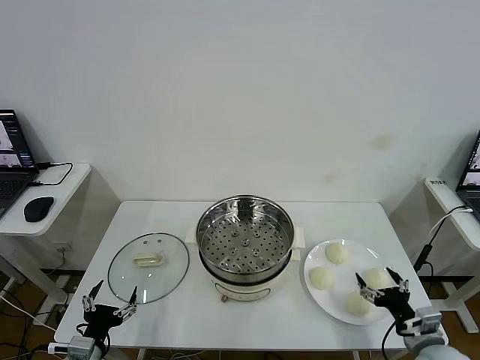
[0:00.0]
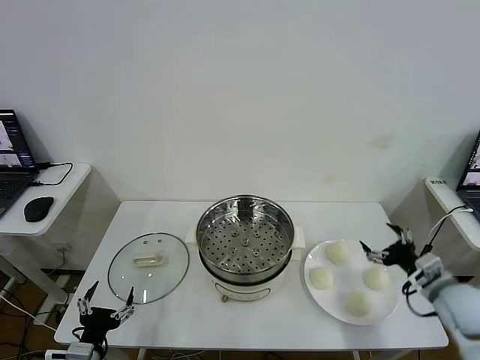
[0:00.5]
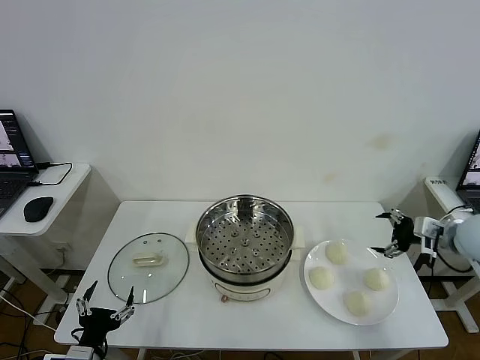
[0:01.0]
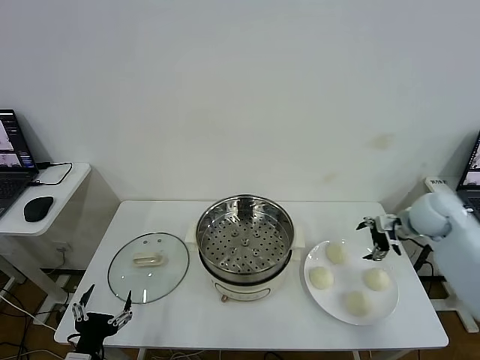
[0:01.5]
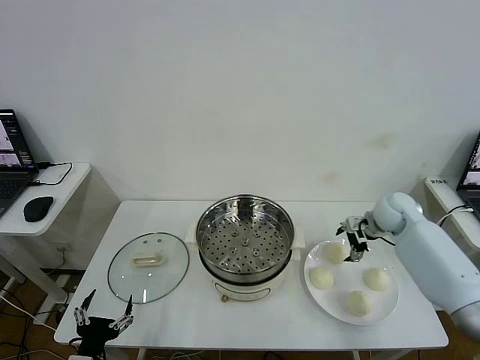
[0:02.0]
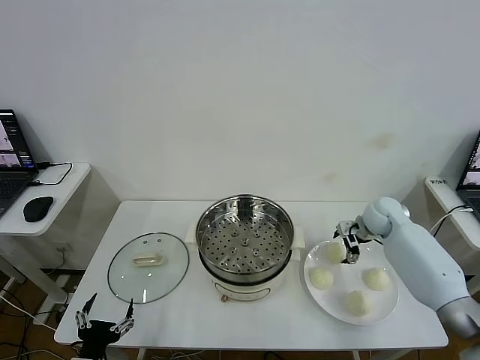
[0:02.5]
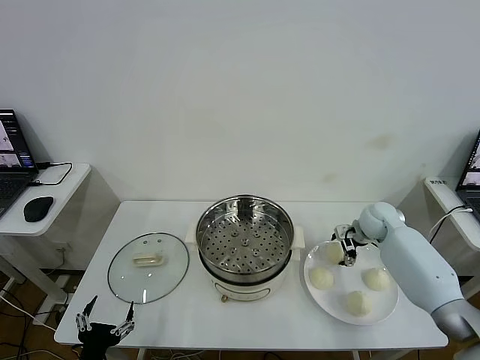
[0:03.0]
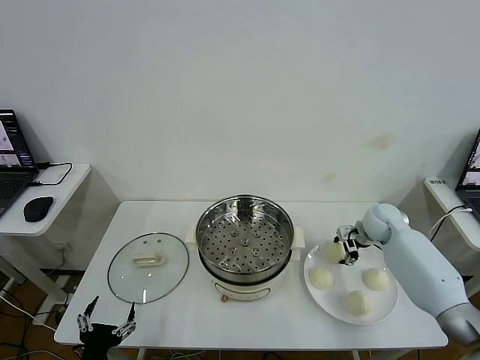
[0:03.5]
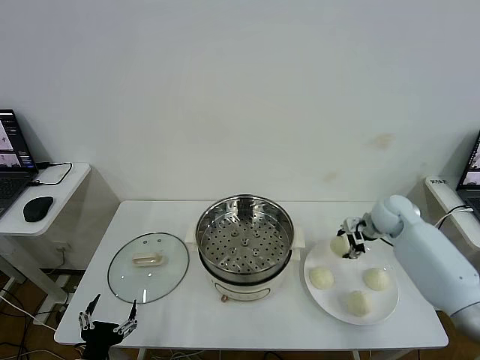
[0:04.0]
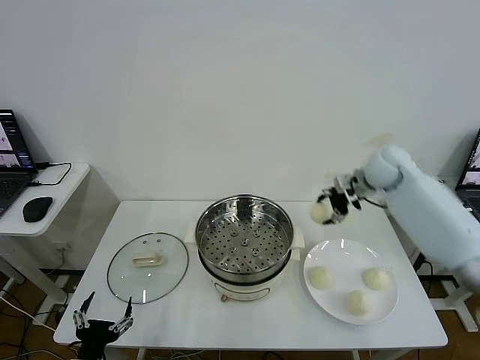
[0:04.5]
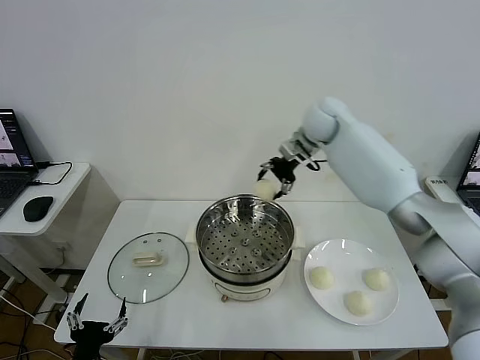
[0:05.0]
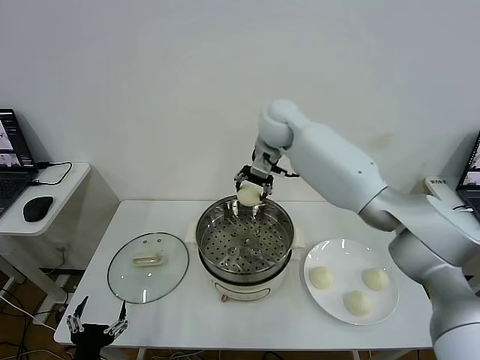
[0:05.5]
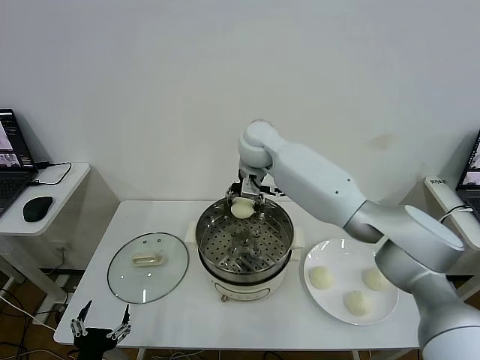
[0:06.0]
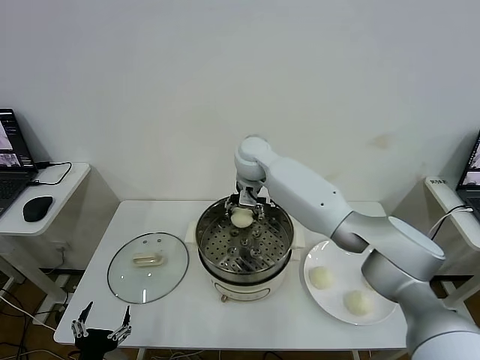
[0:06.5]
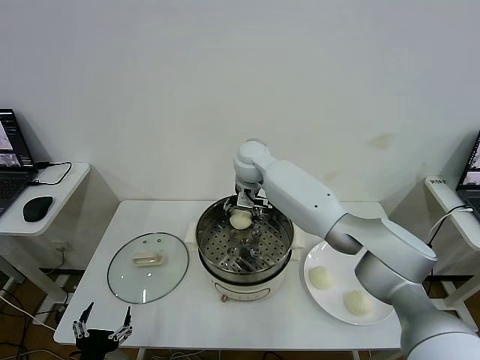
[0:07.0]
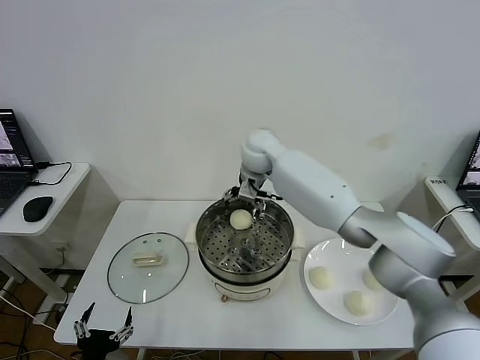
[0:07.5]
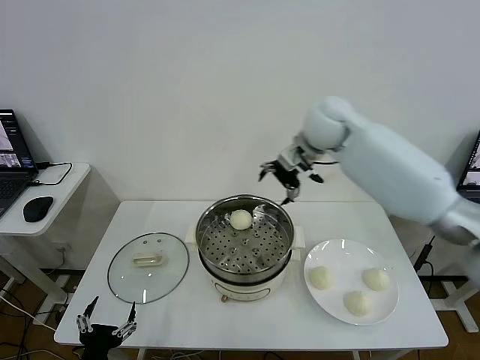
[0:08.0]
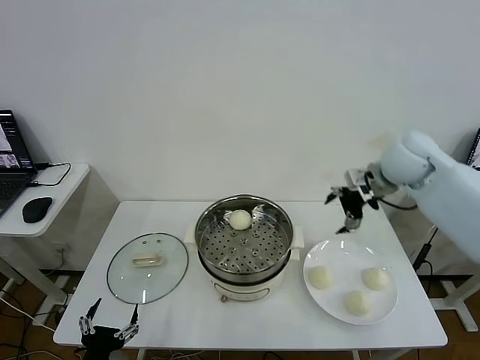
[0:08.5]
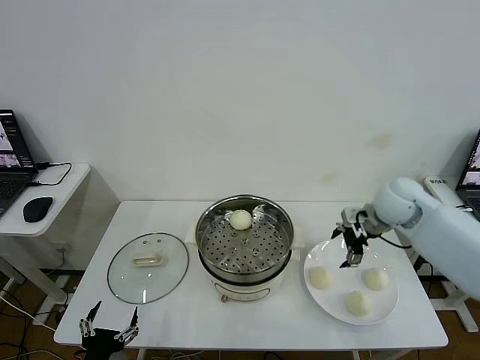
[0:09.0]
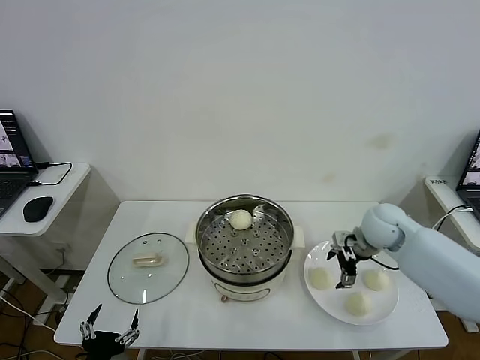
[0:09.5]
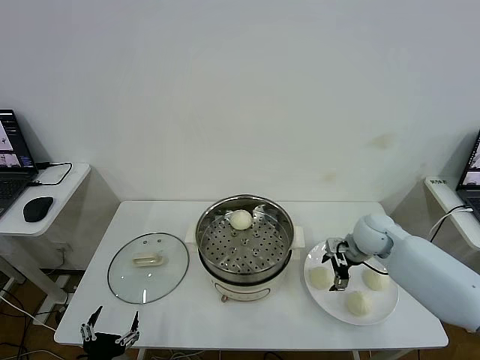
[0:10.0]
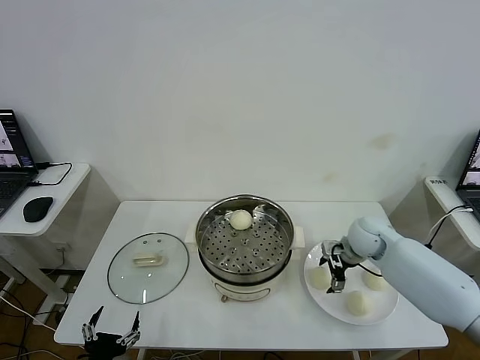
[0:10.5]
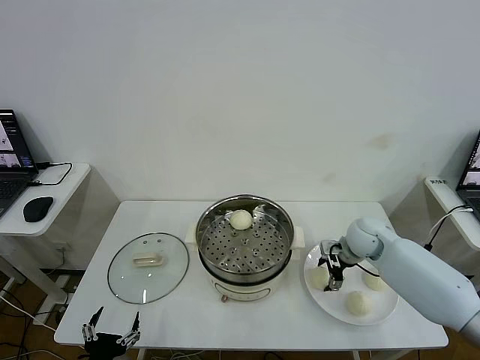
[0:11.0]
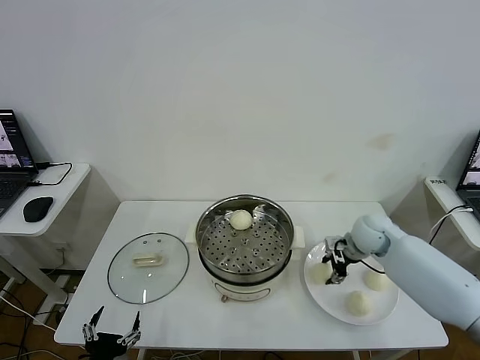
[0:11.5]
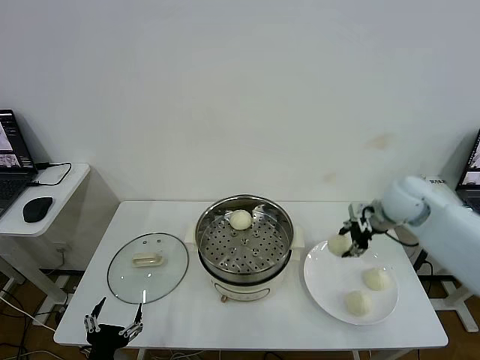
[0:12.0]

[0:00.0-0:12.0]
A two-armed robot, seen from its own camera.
Step, 0:00.0 to 0:03.5: Grasp the baozi in the plate with right gripper.
Step, 0:04.0 to 0:07.0: Place the baozi on the steamer with right gripper.
Step, 0:07.5 to 0:11.0: Grasp the baozi in the plate with right gripper.
0:02.0 to 0:04.0: The right gripper closes its fingers.
0:04.0 to 0:06.0: The right gripper goes approximately 35 cm to the left.
0:06.0 to 0:08.0: The right gripper heads to the right and upward, covering some 20 cm, and opens its fingers.
0:08.0 to 0:10.0: The right gripper travels downward by roughly 25 cm.
0:10.0 to 0:12.0: The right gripper goes roughly 15 cm upward, and closes its fingers.

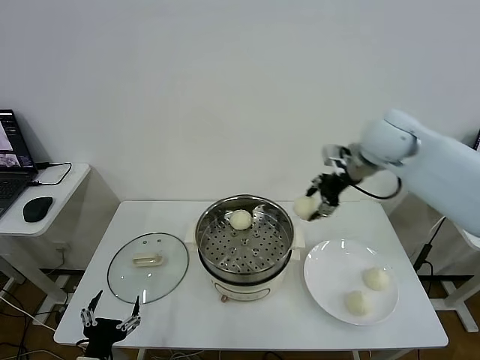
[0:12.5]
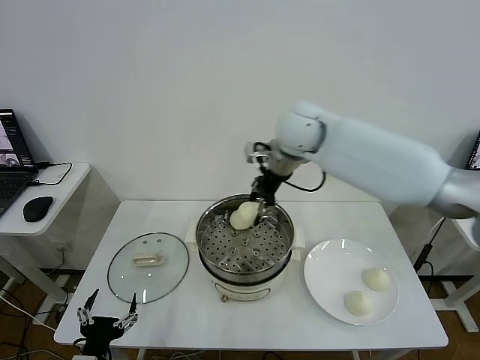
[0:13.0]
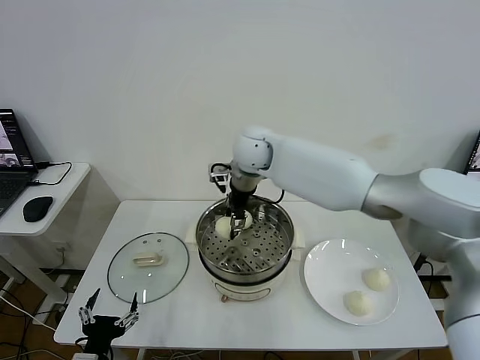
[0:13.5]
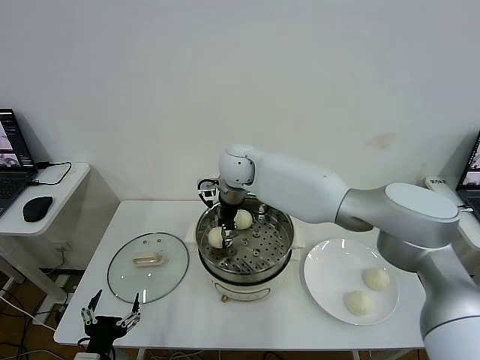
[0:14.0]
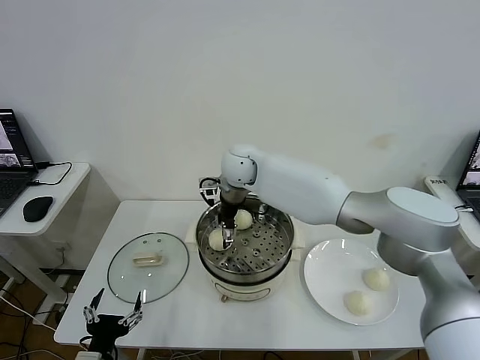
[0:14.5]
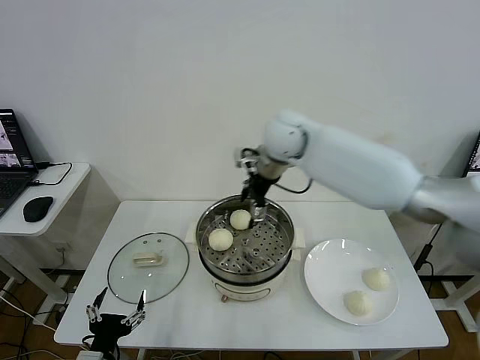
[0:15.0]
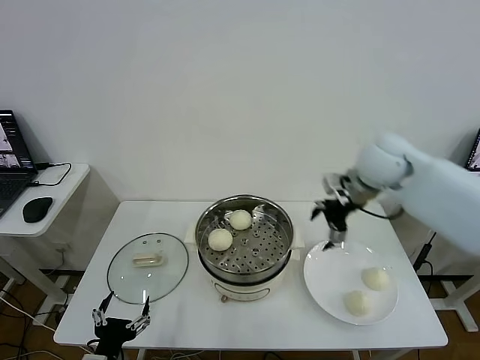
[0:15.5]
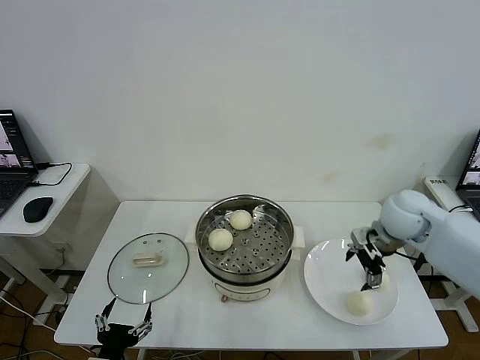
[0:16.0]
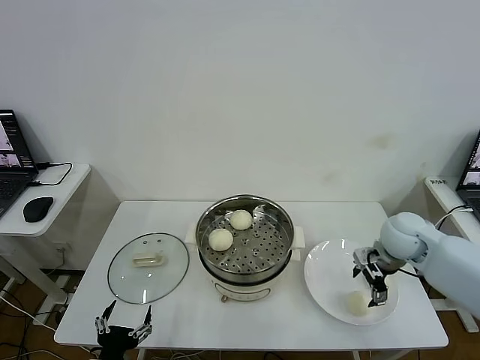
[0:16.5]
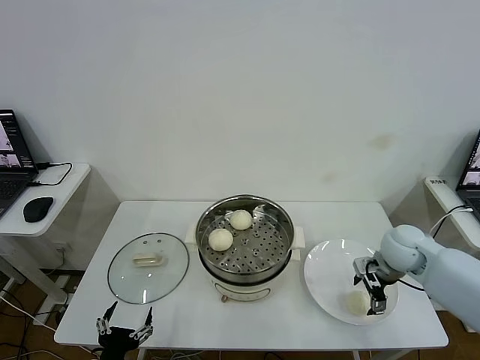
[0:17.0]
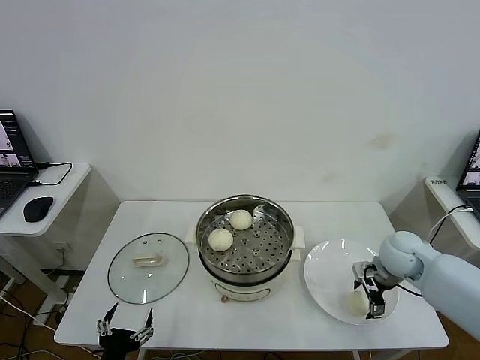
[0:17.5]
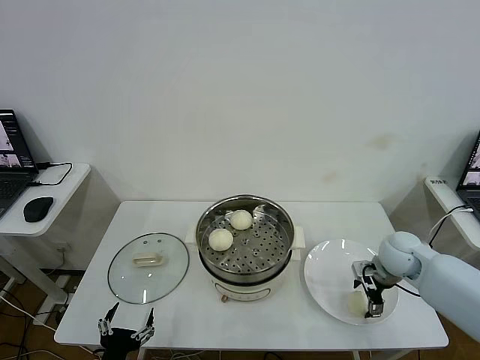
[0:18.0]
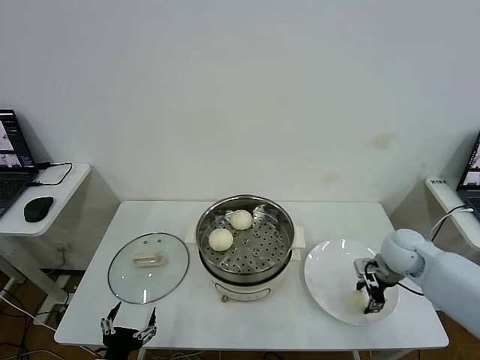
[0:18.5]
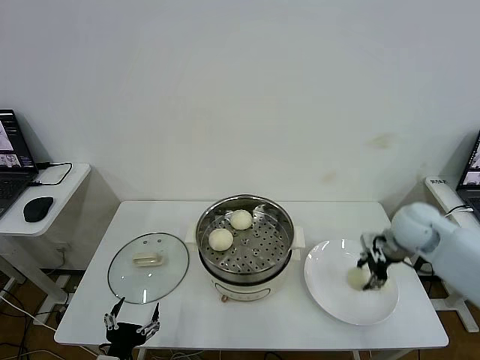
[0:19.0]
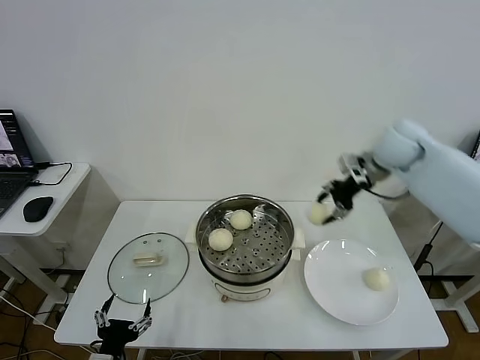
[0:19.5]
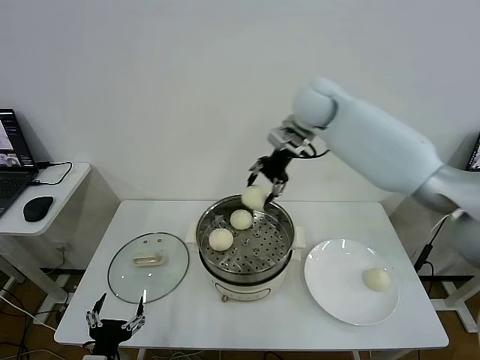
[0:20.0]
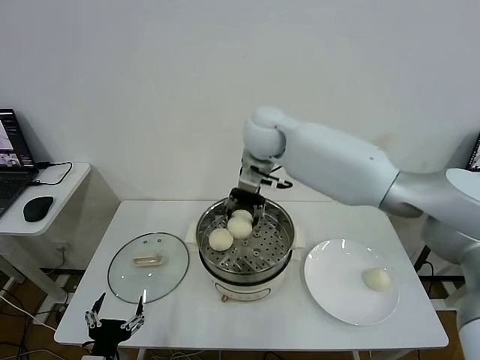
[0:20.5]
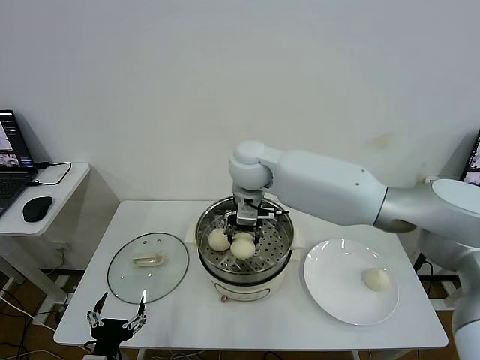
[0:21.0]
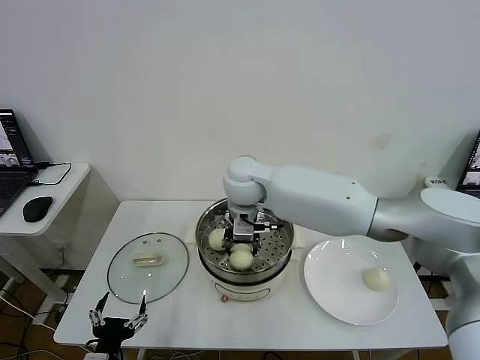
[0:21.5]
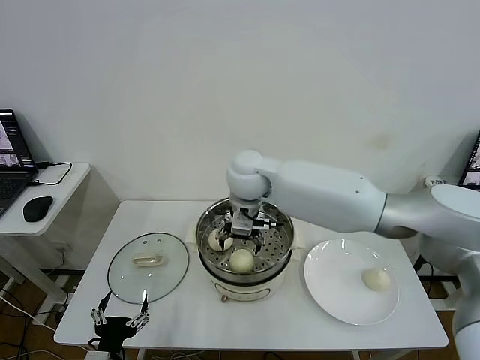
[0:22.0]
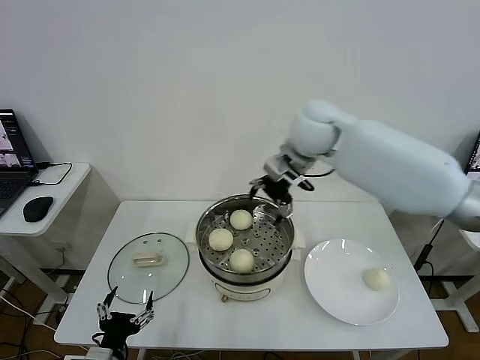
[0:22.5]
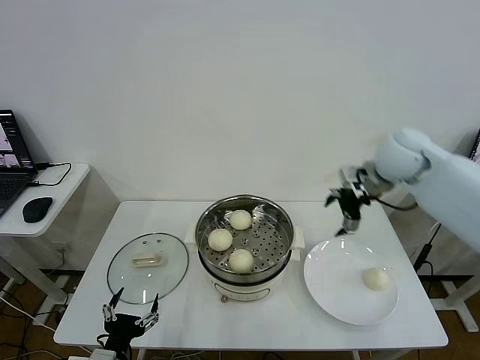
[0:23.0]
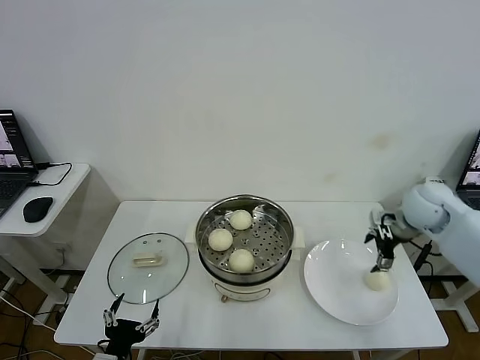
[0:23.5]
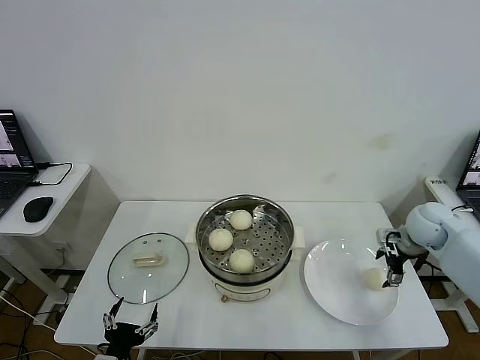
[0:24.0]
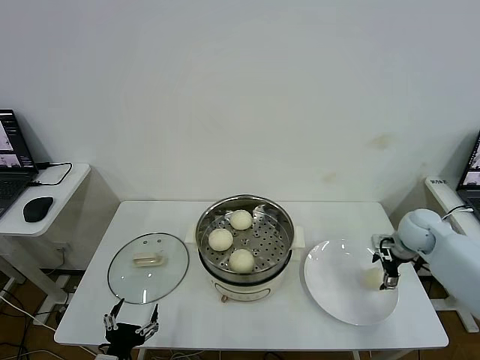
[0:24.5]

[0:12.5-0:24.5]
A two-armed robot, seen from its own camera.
Step, 0:12.5 to 0:14.0: Place the baozi on the steamer with right gripper.
Step, 0:14.5 to 0:18.5: Grasp the baozi in the plate with right gripper.
Step, 0:19.0 to 0:21.5: Place the baozi on the steamer with right gripper.
0:12.5 to 0:14.5: The right gripper is displaced to the left and downward by roughly 25 cm, and opens up.
0:14.5 to 0:16.5: The right gripper is displaced to the right by approximately 35 cm.
0:16.5 to 0:18.5: The right gripper closes up.
0:18.5 to 0:20.5: The right gripper is displaced to the left and upward by some 40 cm.
0:20.5 to 0:22.5: The right gripper shifts about 10 cm to the right, and opens up.
0:22.5 to 0:24.5: The right gripper is displaced to the right and downward by about 35 cm.

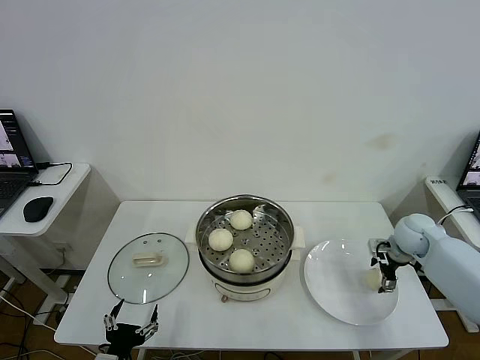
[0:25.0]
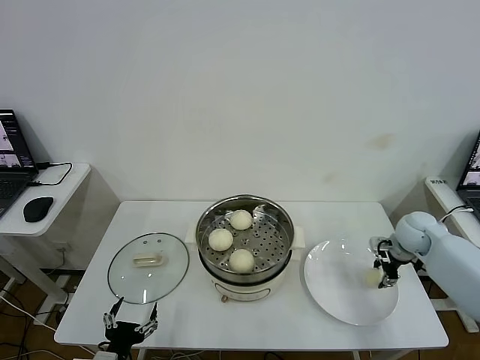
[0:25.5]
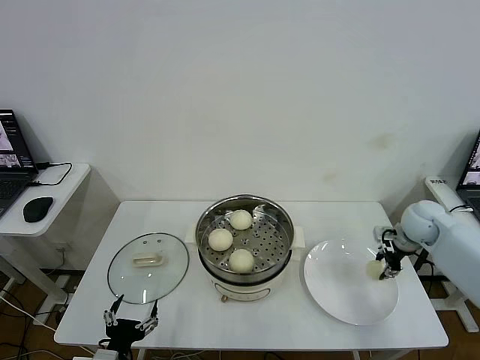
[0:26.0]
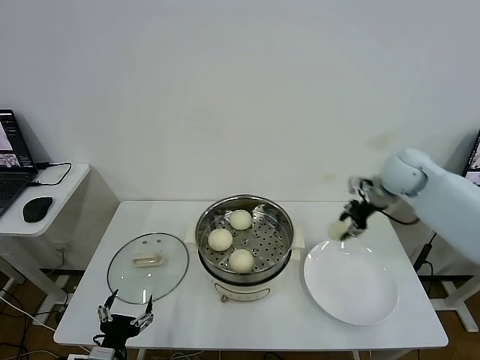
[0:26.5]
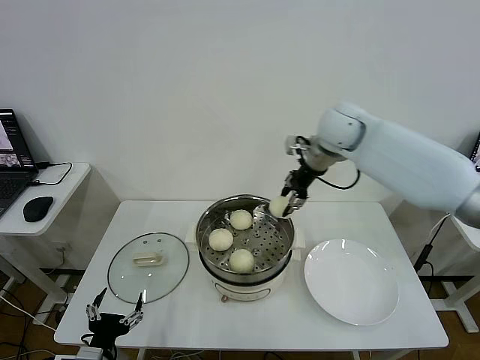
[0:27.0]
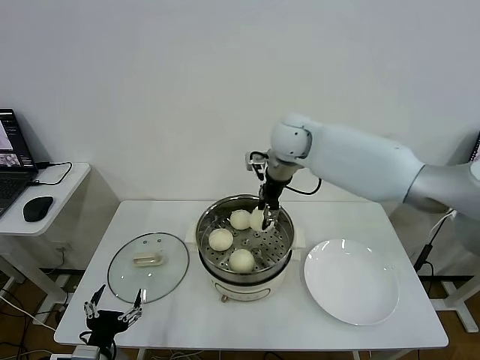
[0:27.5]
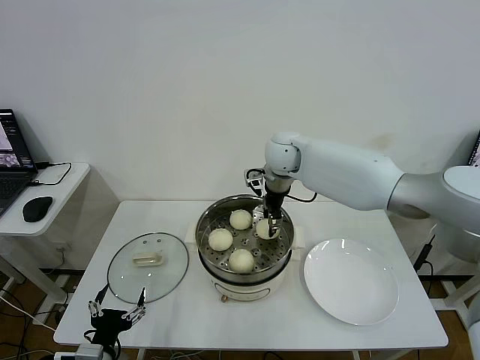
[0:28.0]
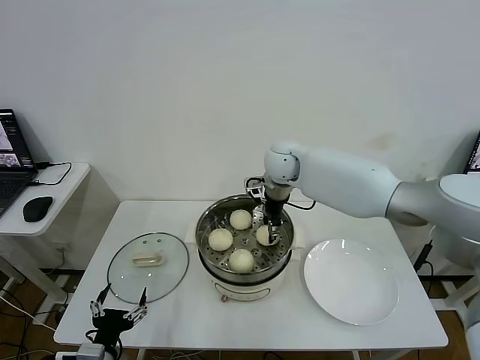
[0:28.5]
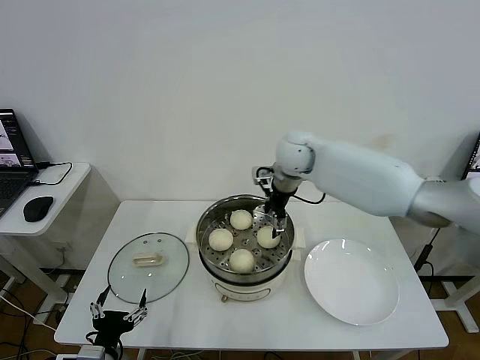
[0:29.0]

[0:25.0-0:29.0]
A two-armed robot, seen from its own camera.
Step, 0:26.0 to 0:28.5: Place the baozi on the steamer with right gripper.
0:25.0 to 0:27.0: The right gripper moves upward, to the left and forward, roughly 35 cm, and closes its fingers.
0:27.0 to 0:29.0: The right gripper heads to the left and downward, covering roughly 10 cm, and opens its fingers.
